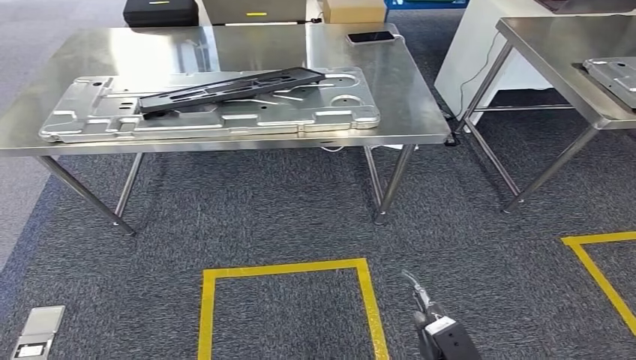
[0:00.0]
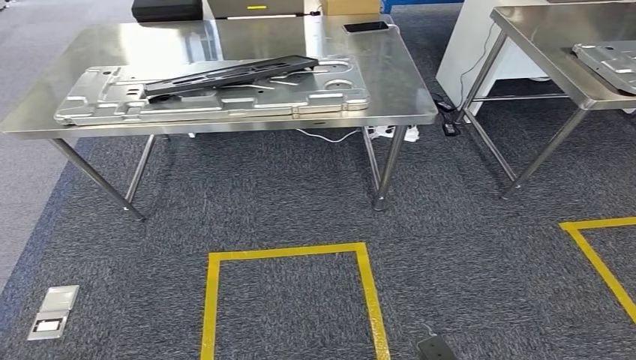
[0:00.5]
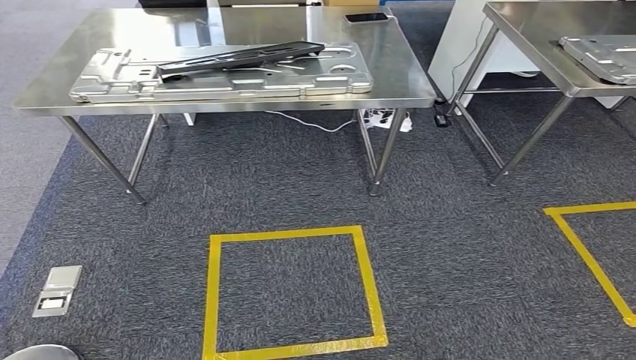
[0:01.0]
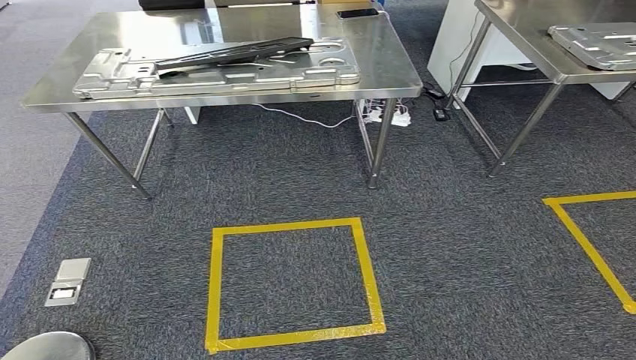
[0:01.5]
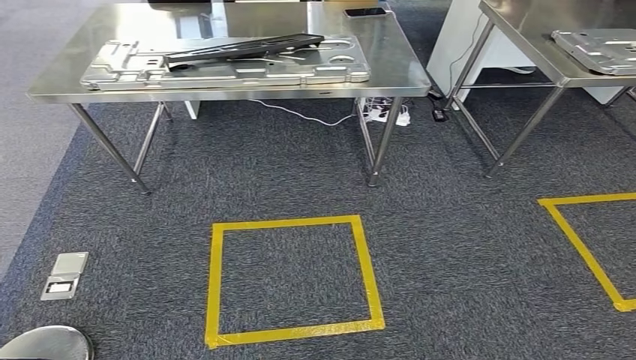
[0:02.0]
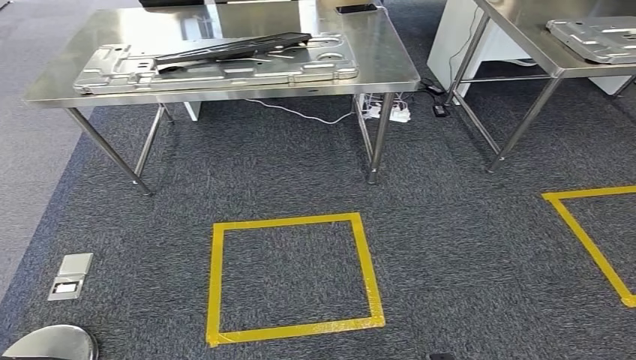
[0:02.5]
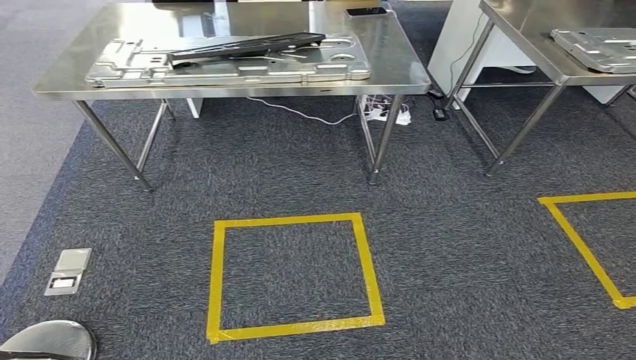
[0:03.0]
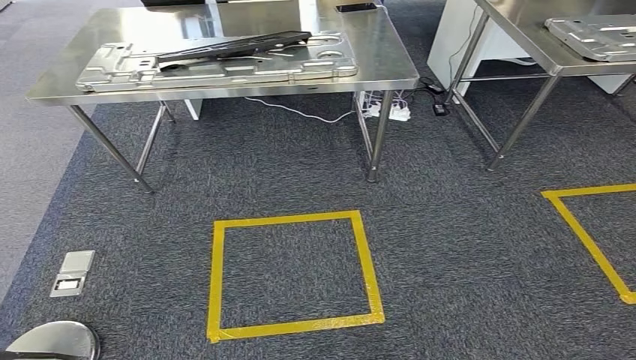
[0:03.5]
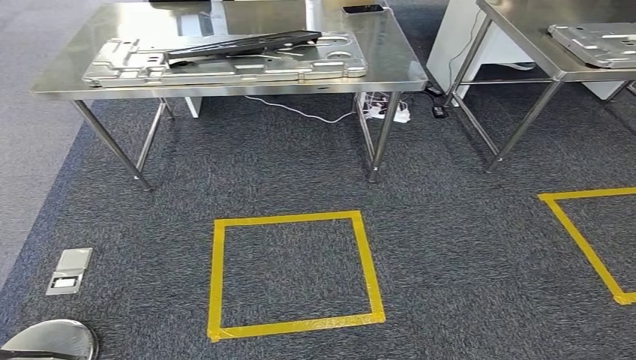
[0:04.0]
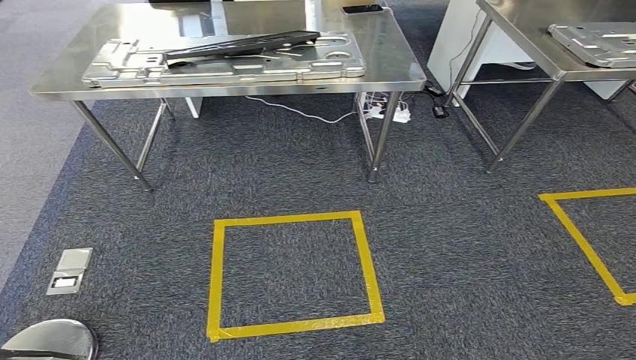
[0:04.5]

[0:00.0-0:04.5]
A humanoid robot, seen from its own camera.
Step, 0:00.0 to 0:04.5: Move to the initial position of the workbench.
0:02.0 to 0:04.5: The left hand changes place by about 5 cm.

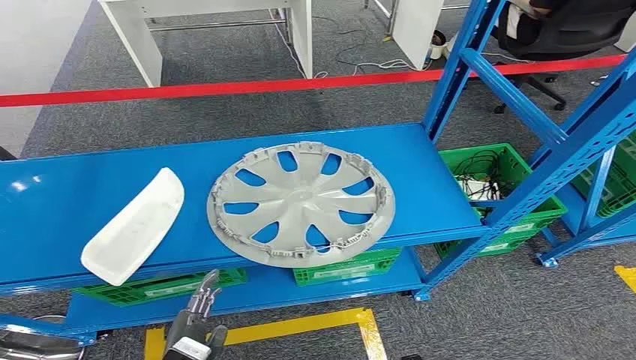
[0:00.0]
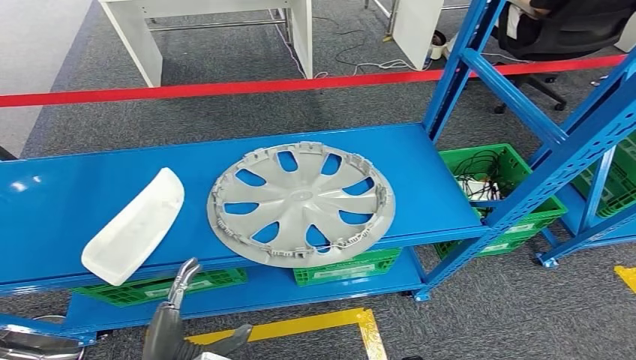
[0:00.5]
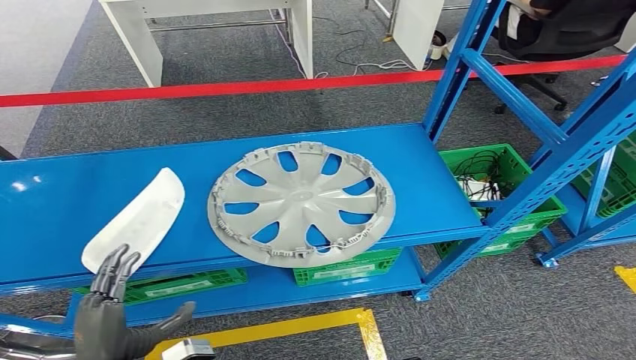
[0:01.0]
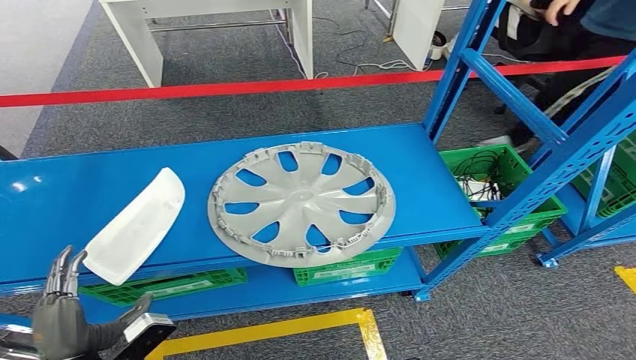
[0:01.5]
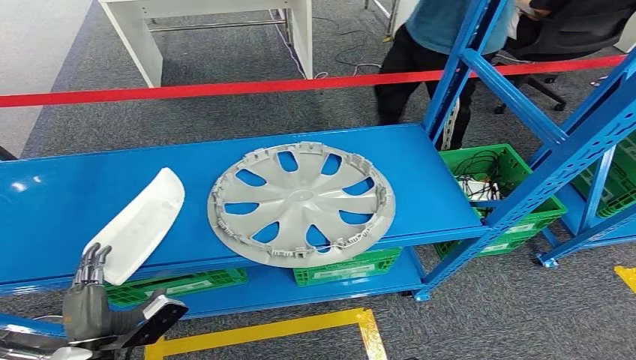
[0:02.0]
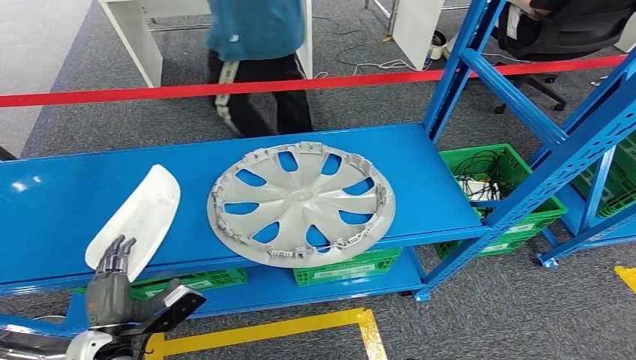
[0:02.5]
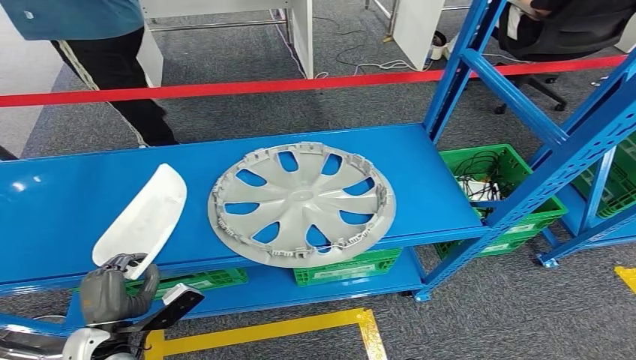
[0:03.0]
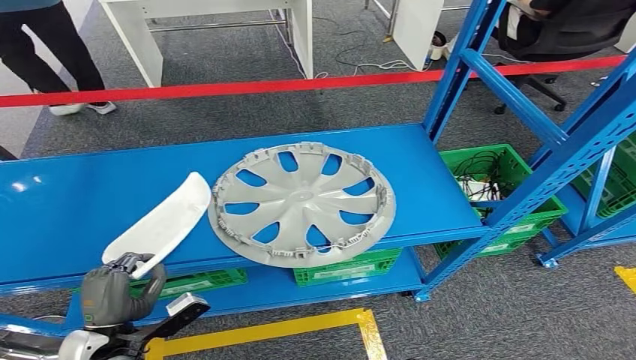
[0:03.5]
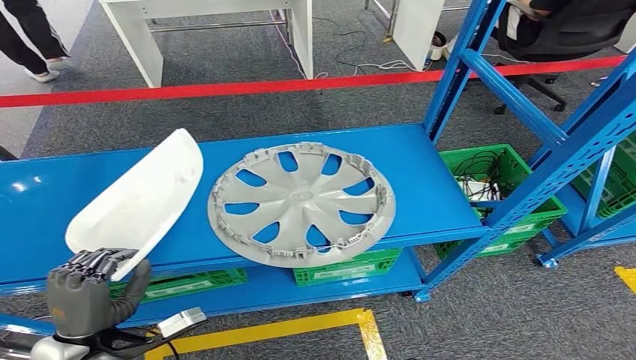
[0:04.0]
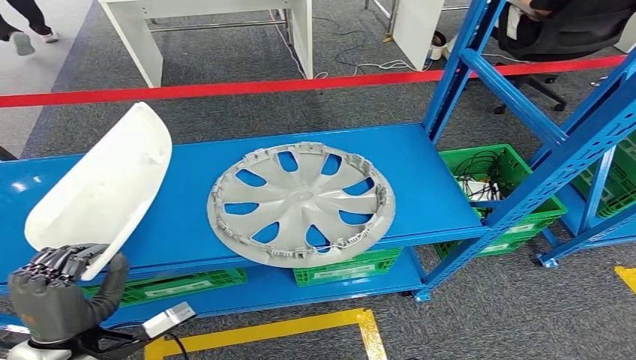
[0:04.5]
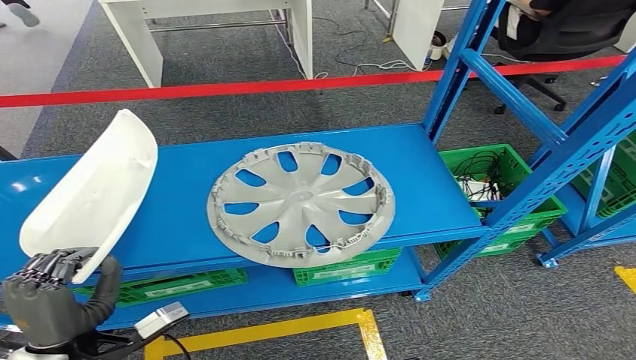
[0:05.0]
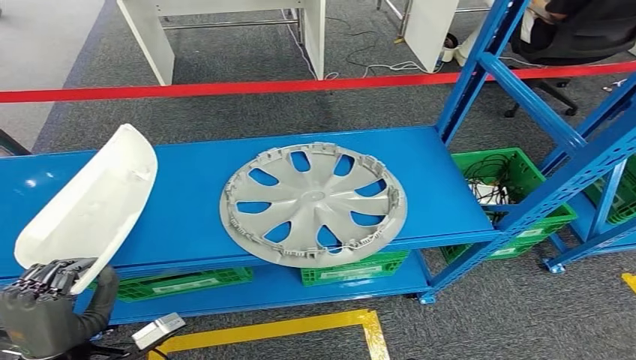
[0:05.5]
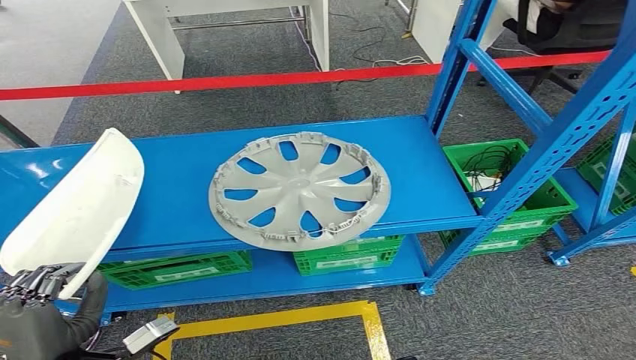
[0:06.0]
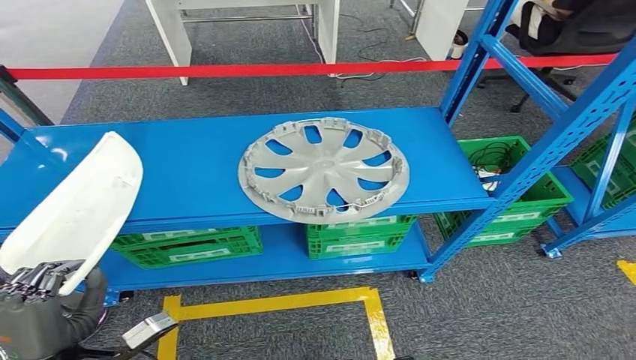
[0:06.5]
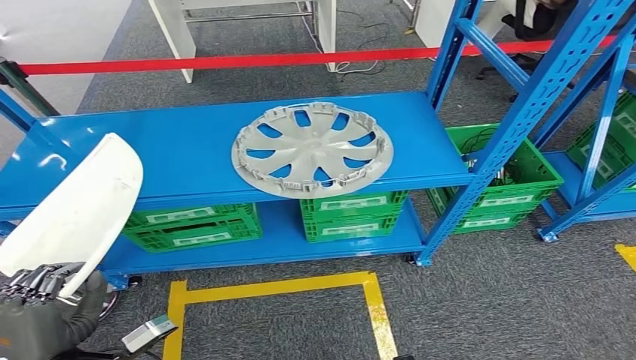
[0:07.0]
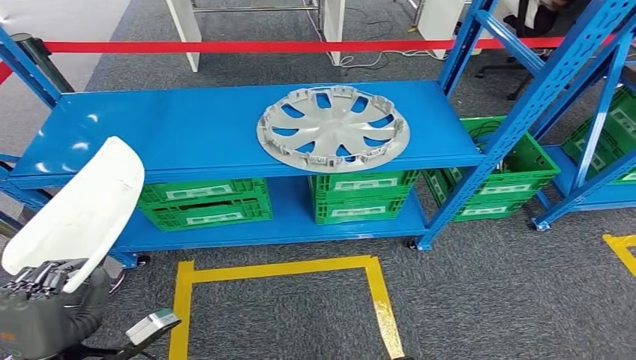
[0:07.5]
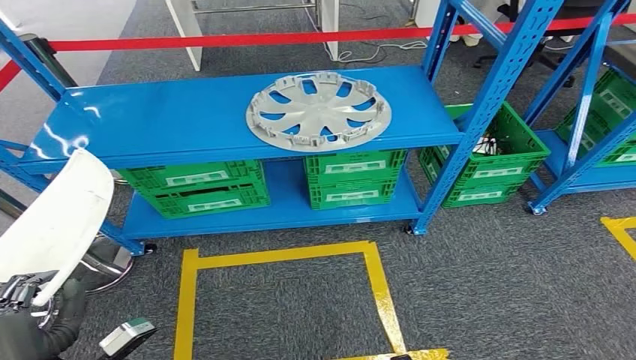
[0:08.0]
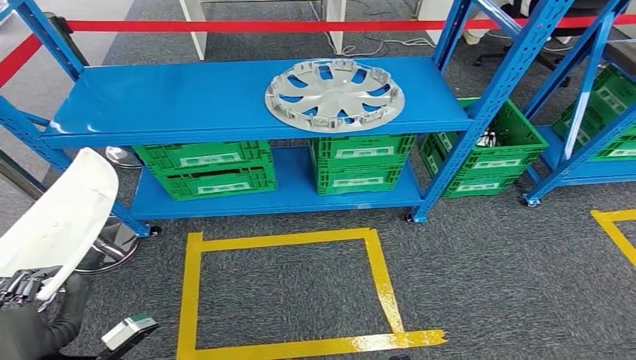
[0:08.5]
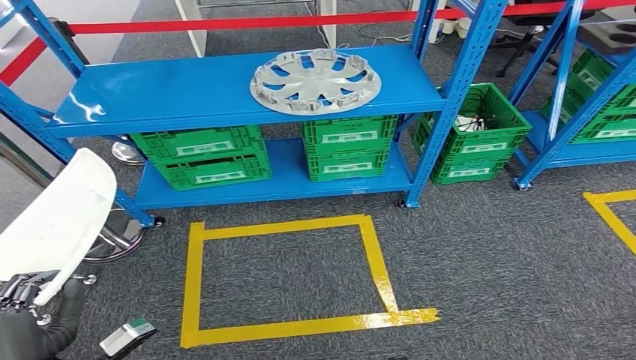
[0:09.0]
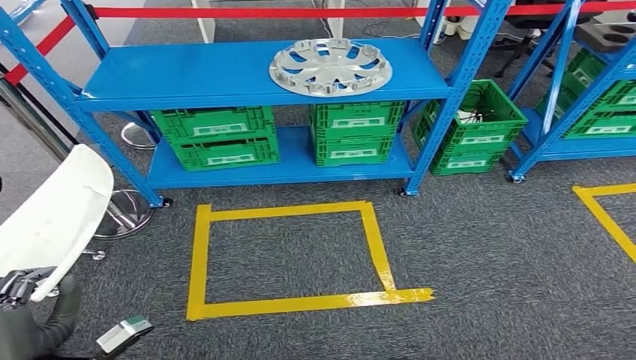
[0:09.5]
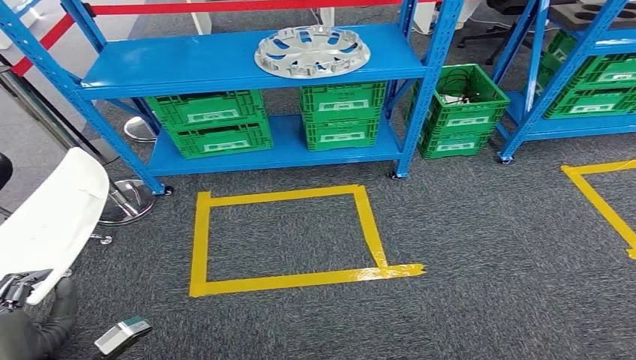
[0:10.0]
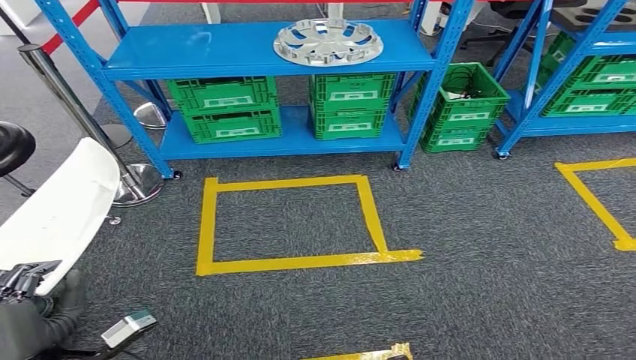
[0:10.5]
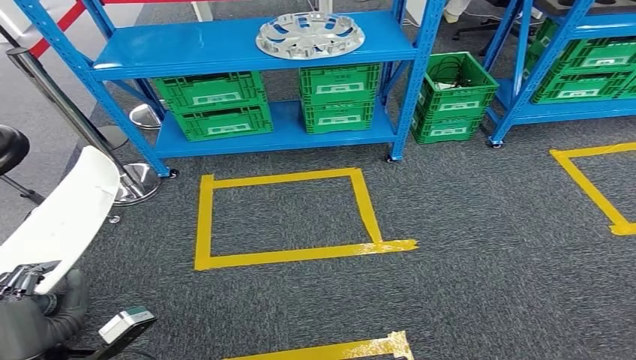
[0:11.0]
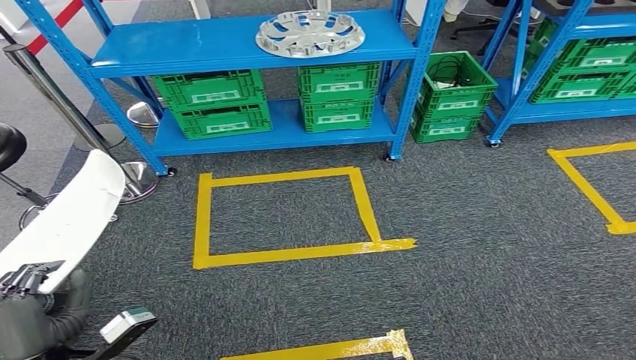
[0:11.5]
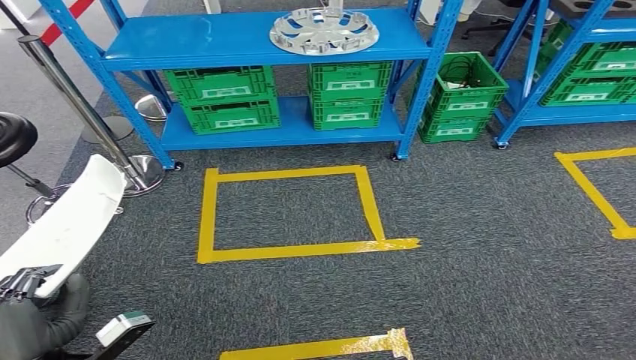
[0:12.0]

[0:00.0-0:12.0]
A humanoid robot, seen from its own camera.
Step, 0:00.0 to 0:06.5: Take small components from the rack.
0:02.0 to 0:04.0: The left hand heads upward, covering approximately 5 cm.

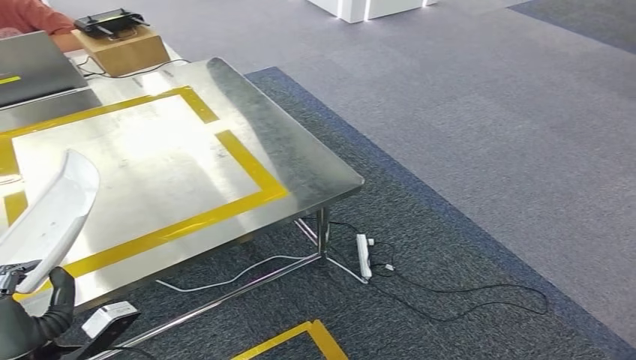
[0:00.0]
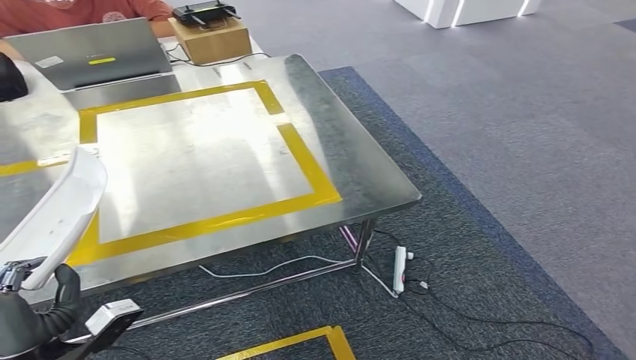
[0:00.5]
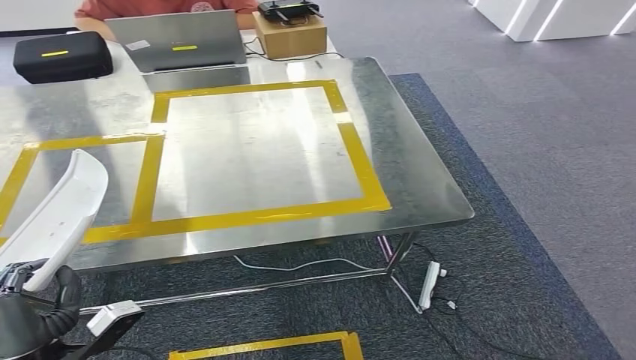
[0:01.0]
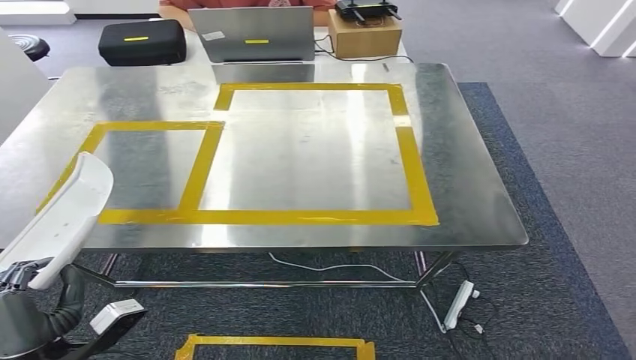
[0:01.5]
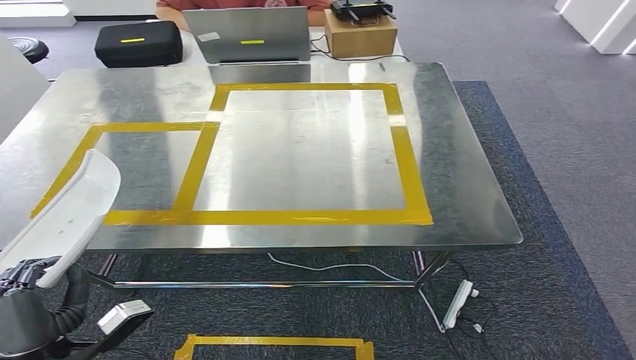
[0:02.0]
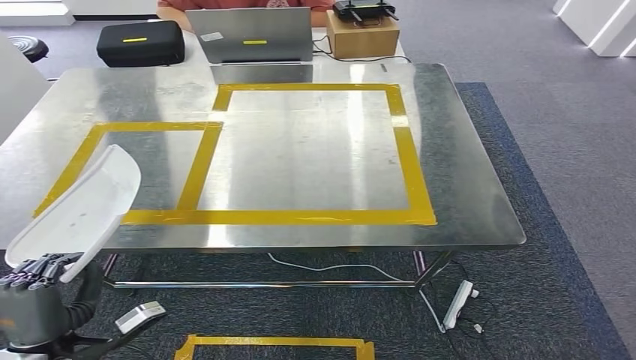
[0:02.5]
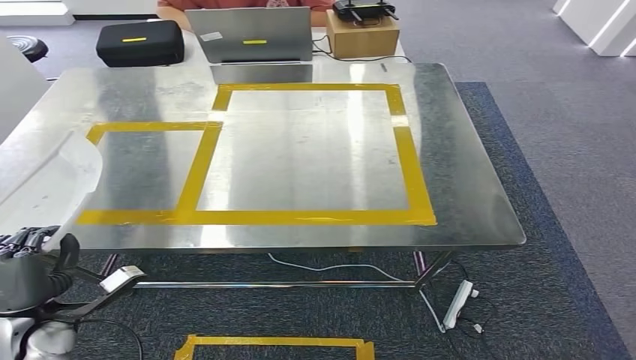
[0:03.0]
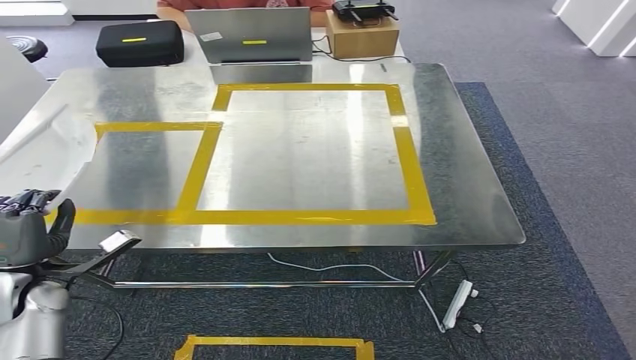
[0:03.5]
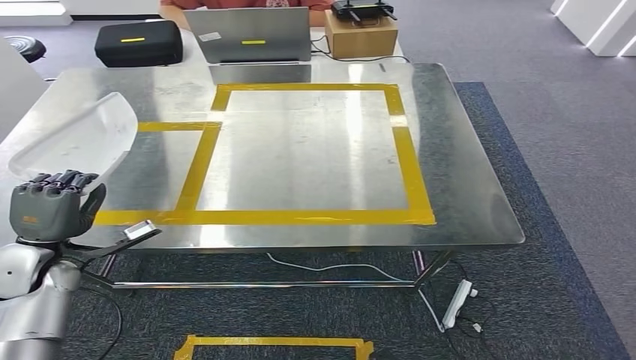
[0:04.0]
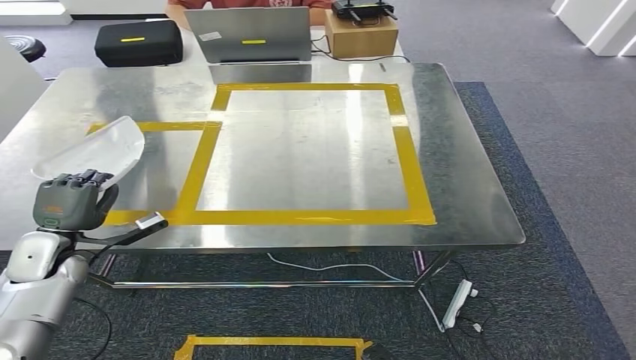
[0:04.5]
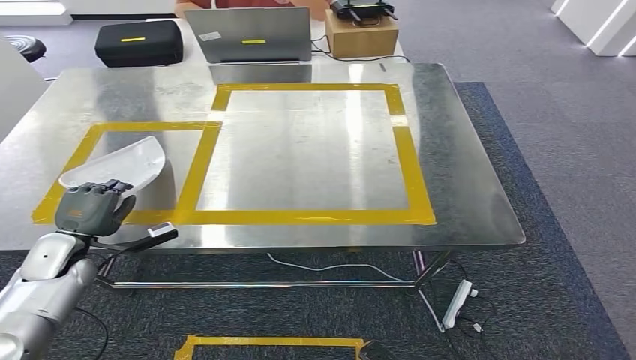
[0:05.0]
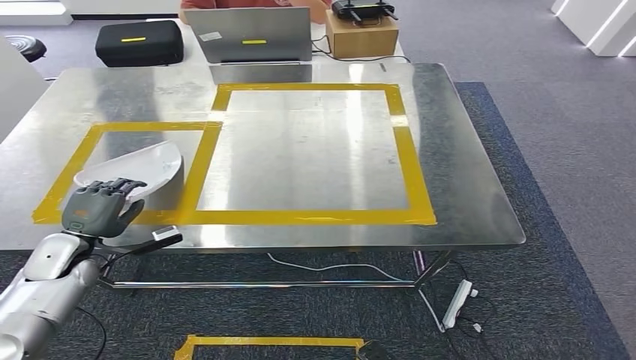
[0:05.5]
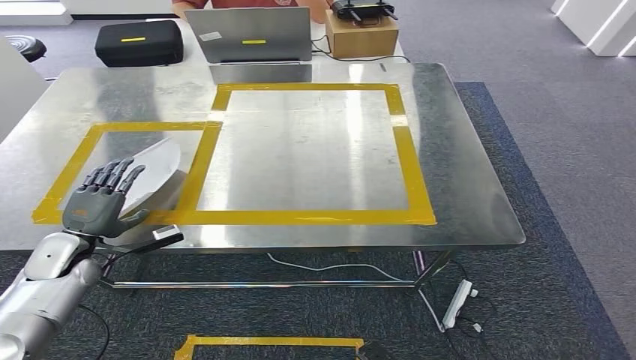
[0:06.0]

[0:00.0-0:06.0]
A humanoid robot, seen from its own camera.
0:02.0 to 0:04.0: The left hand is displaced forward and to the left by about 20 cm.
0:04.0 to 0:06.0: The left hand ends up about 5 cm from where it was.
